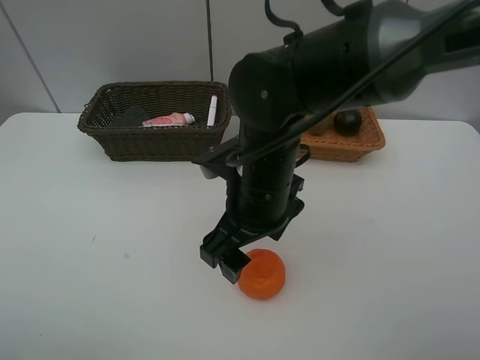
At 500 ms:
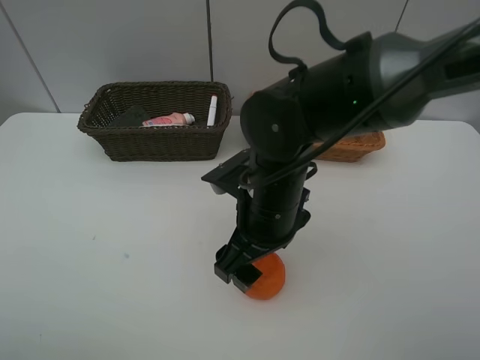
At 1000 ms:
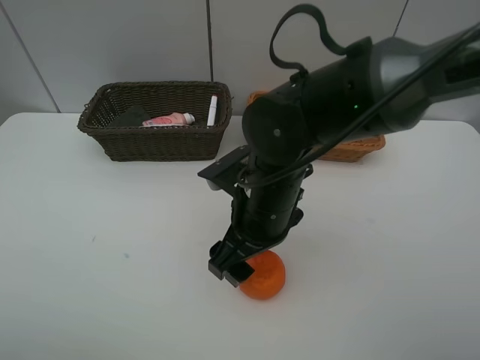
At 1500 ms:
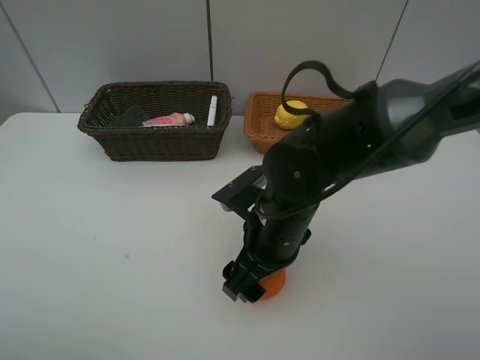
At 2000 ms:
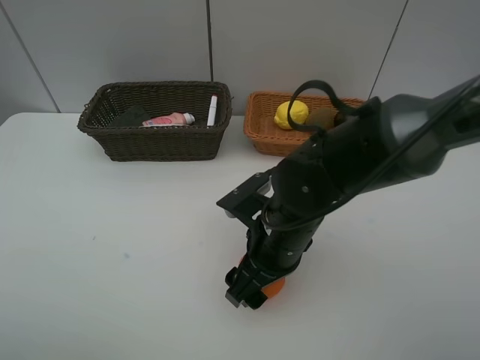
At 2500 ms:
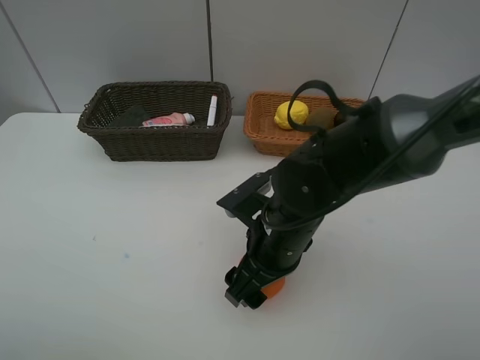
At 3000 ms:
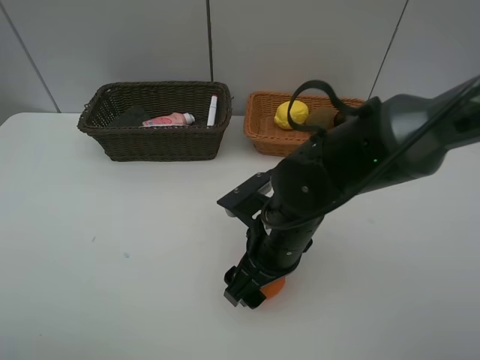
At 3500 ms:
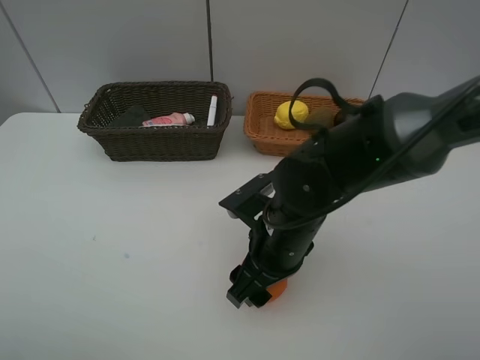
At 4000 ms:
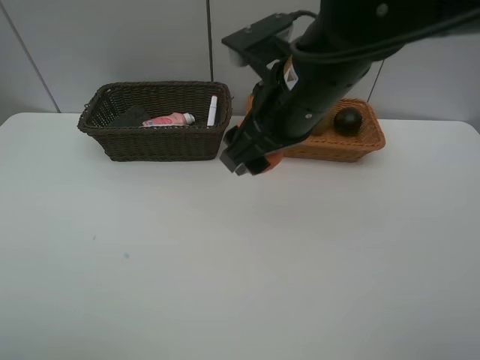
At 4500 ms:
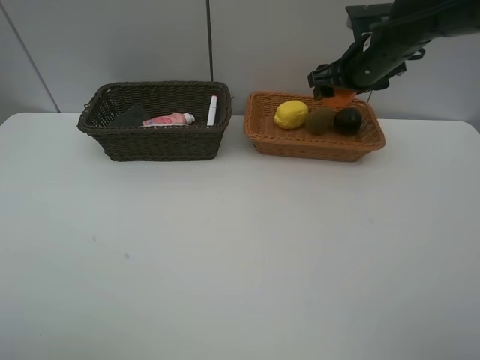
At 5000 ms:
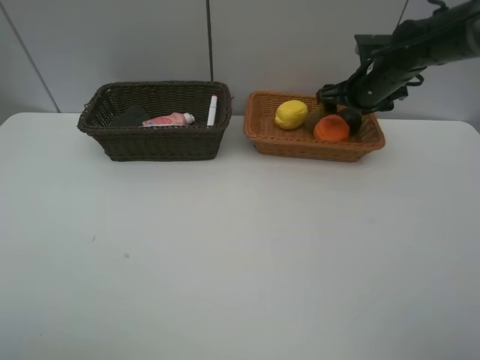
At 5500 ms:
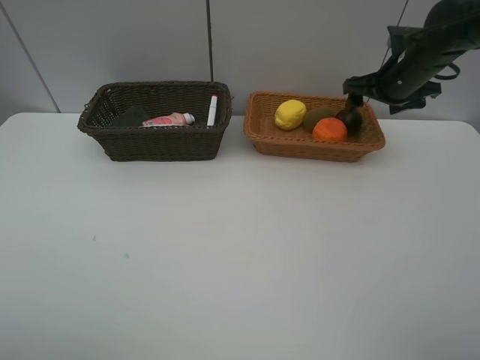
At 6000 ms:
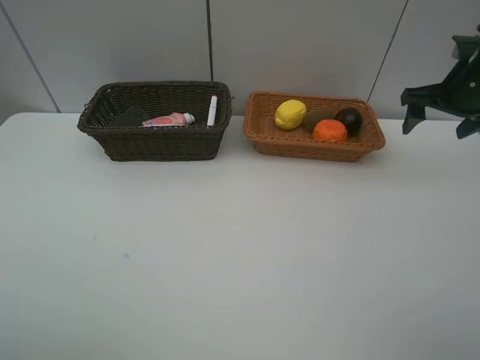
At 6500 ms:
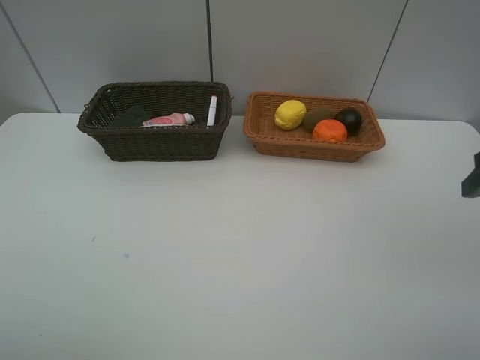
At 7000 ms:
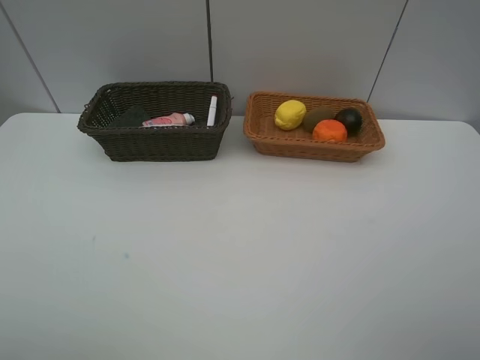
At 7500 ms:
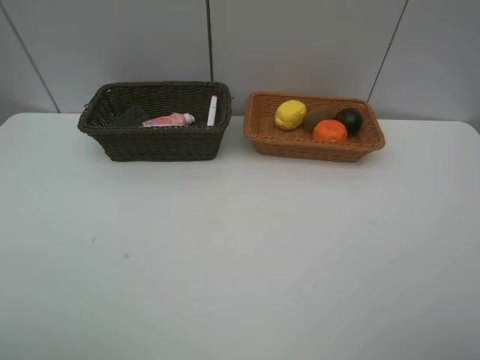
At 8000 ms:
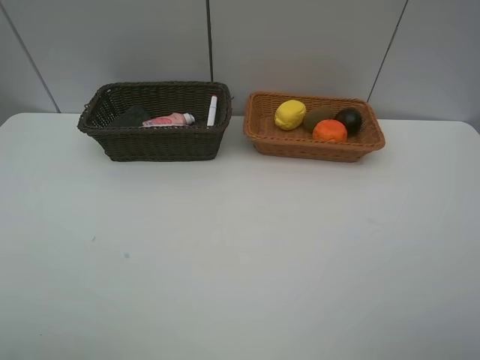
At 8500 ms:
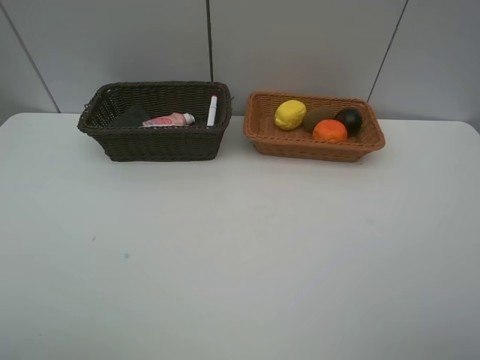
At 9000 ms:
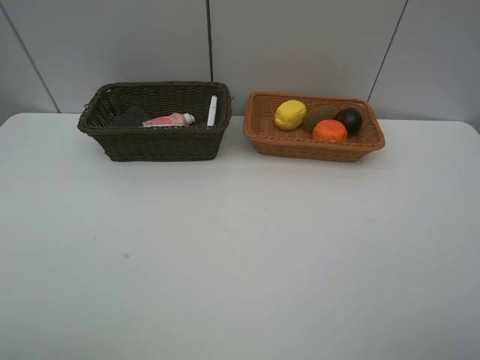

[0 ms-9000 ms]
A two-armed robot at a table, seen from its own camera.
Task of the whole recording: Place multiple objects separately in different baskets.
Step, 0 ms to 3500 ms: Pick up the orange with right gripper.
Step, 4000 ms to 5500 ms: Place the orange in the light basket with right gripper.
0 ms to 2000 ms: The right gripper is displaced downward by about 5 cm.
2000 ms to 4500 ms: The right gripper shifts approximately 30 cm forward, to the right and upward.
4500 ms to 7000 ms: The right gripper travels backward by roughly 40 cm, and opens up.

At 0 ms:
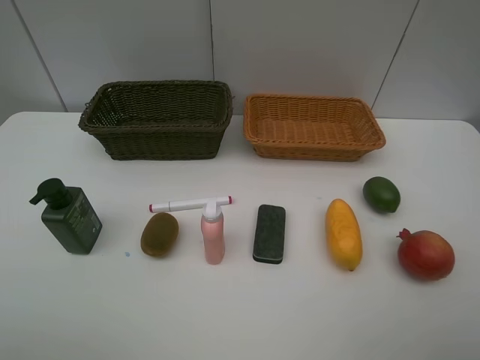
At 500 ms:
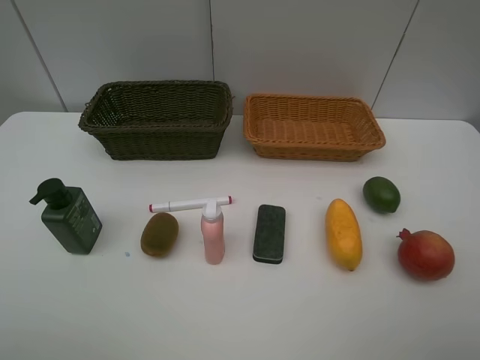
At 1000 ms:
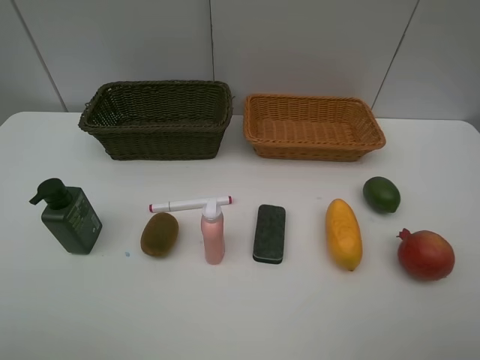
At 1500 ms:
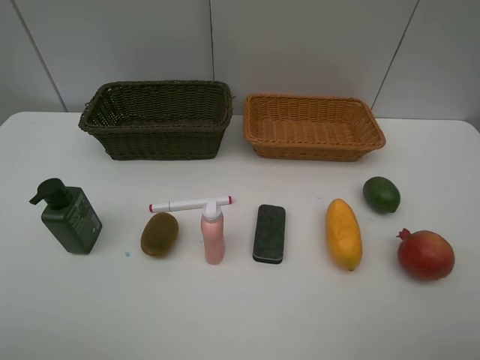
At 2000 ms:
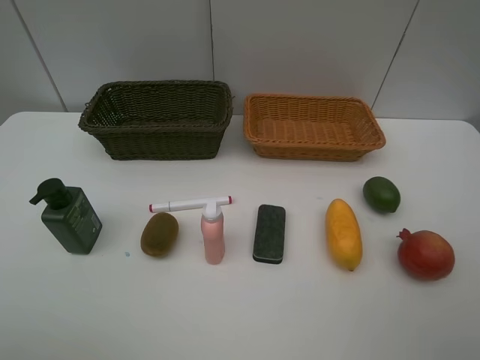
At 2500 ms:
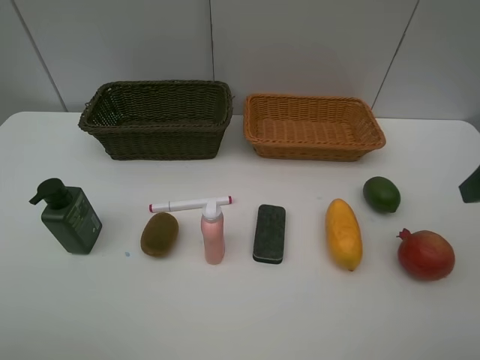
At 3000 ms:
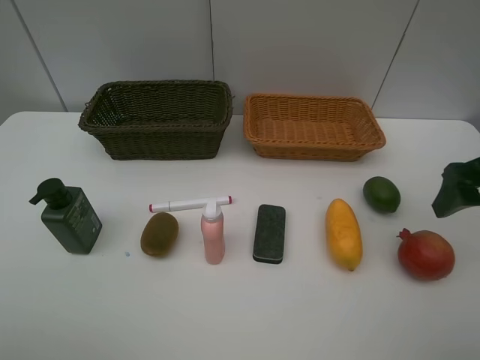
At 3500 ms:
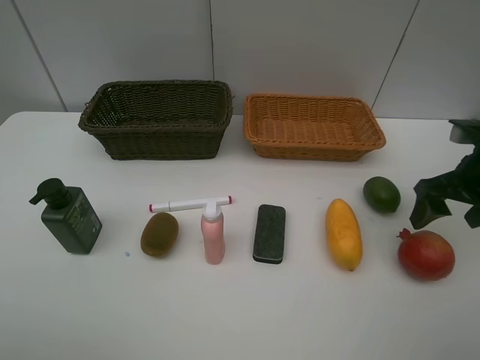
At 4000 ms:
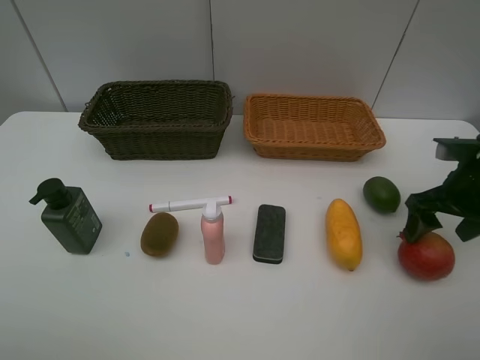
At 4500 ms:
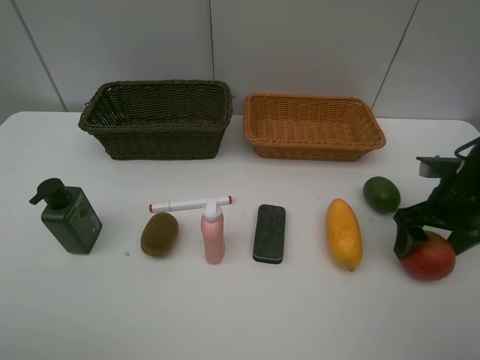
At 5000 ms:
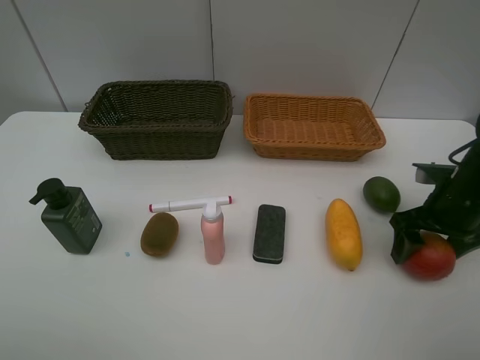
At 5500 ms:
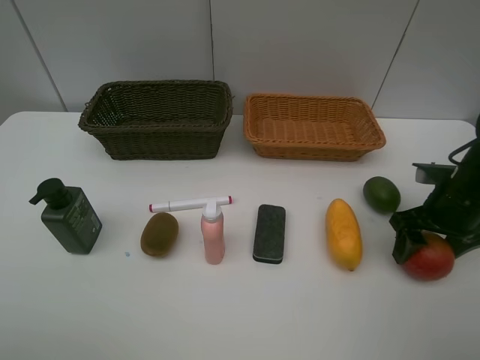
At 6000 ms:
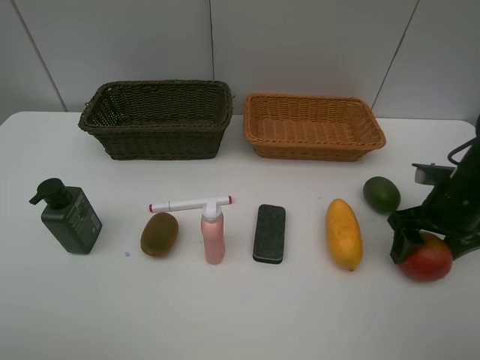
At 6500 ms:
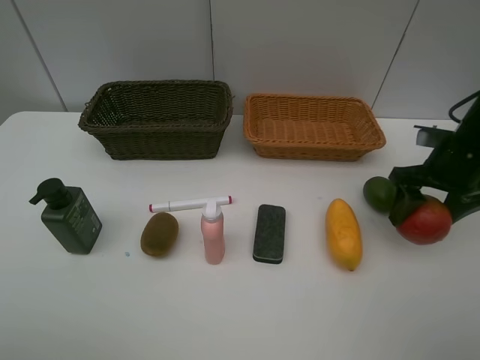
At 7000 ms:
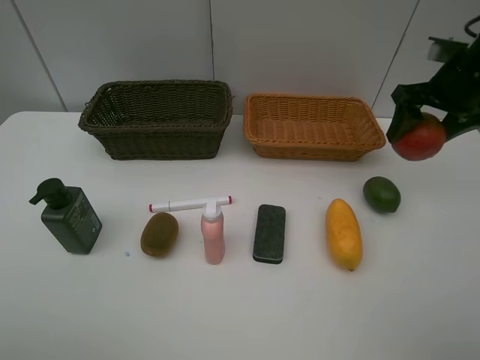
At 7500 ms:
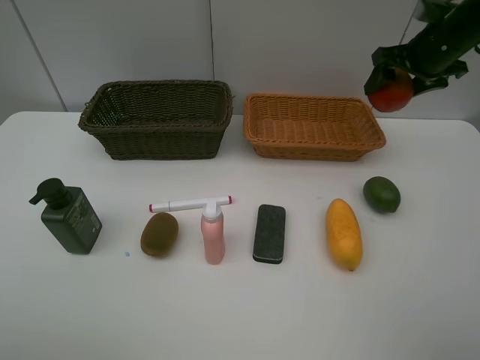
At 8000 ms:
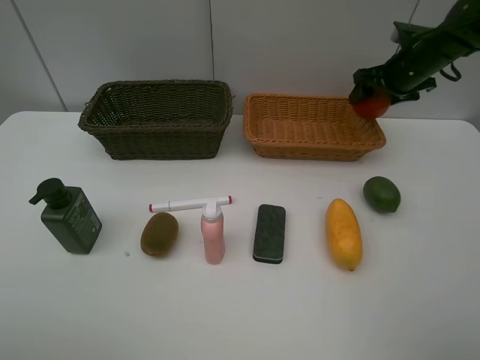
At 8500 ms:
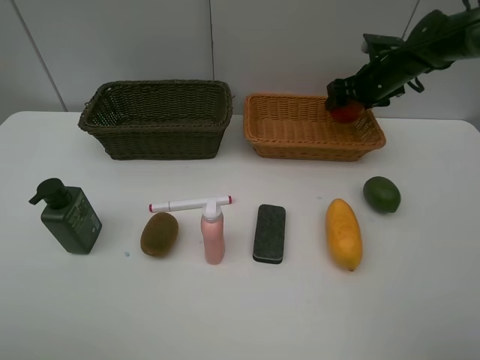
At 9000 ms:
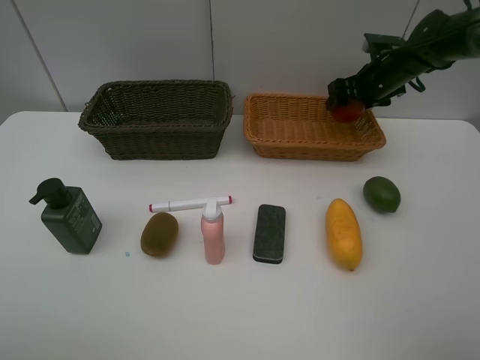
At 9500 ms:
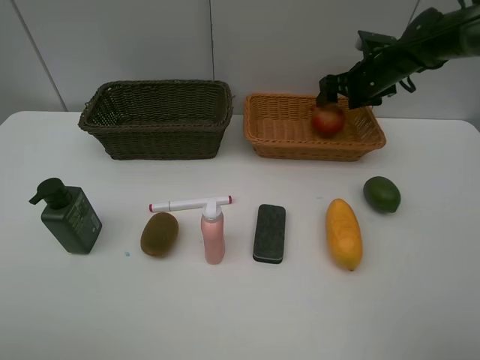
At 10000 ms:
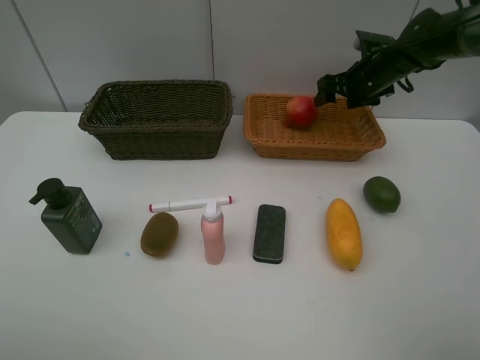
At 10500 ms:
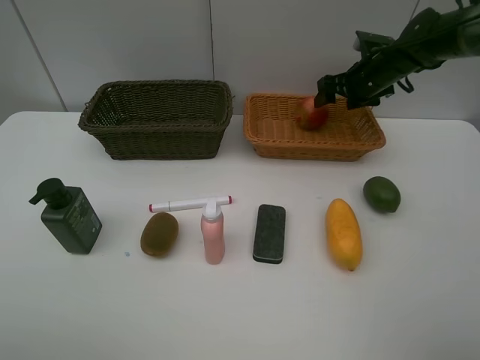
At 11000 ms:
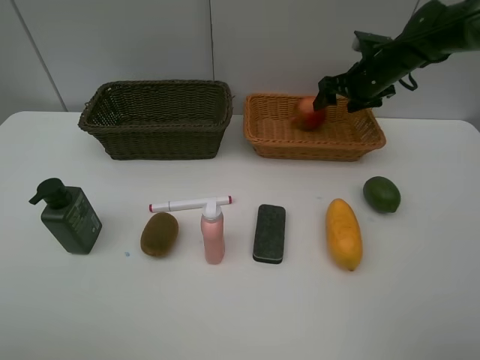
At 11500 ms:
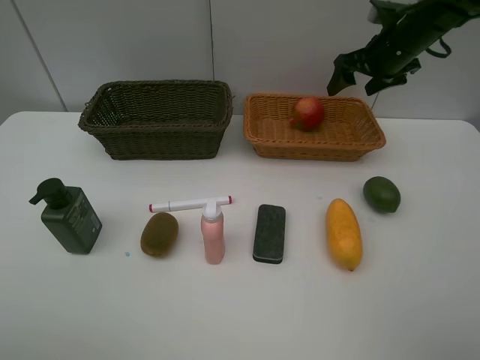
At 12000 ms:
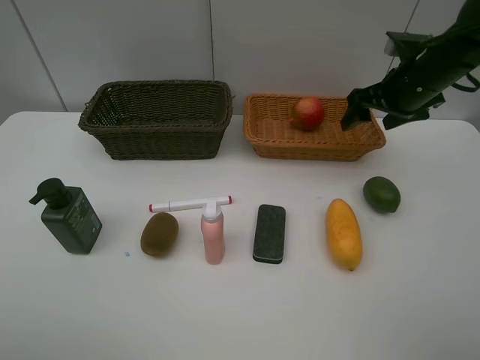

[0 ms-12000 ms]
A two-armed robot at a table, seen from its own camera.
Task of the whole recording: Place multiple objects separately in different baskets.
Step, 0 ms to 6500 ms: Pick up the pomegranate with right gripper.
Step, 7000 ms to 9500 ms: Place the pomegranate in the light basket with right gripper.
2000 ms to 4000 ms: The right gripper travels forward and downward by roughly 25 cm.
4000 ms to 6000 ms: The grippers make only small movements.
6000 ms to 8000 ms: The right gripper is displaced forward by approximately 20 cm.
8000 ms to 10000 ms: The right gripper goes some 5 cm to the left.
10000 ms to 12000 ms: The right gripper moves backward, approximately 10 cm.

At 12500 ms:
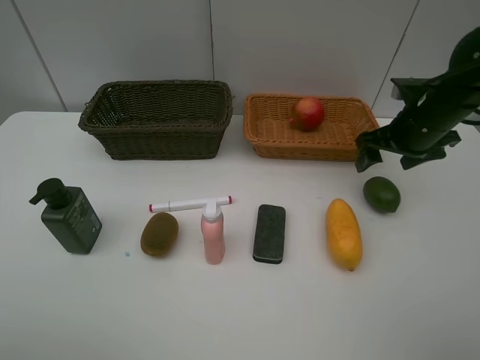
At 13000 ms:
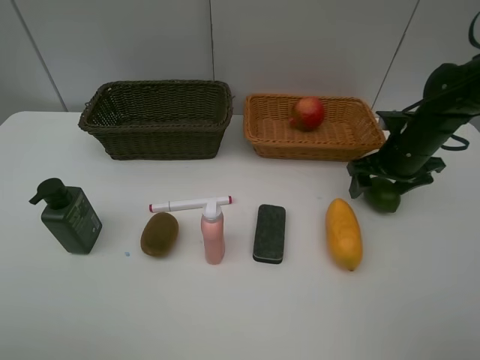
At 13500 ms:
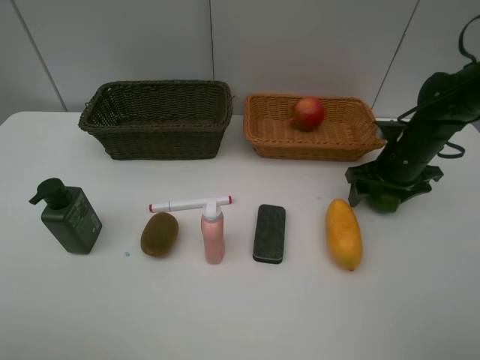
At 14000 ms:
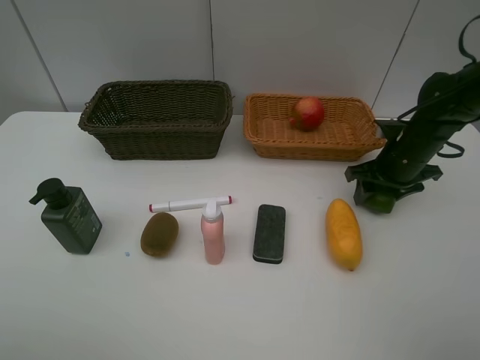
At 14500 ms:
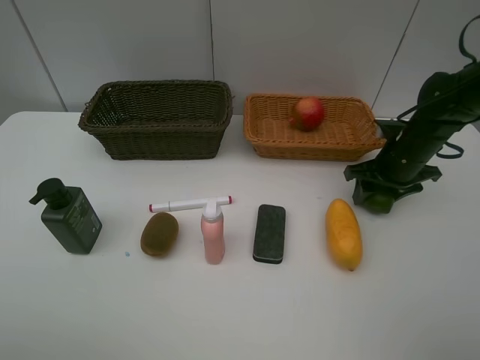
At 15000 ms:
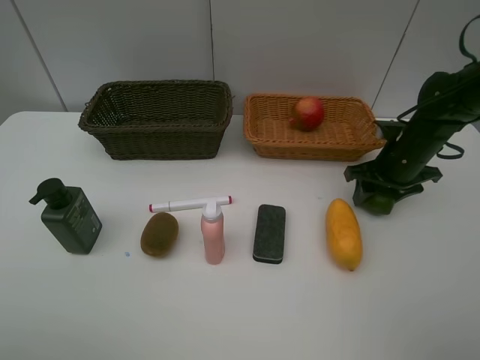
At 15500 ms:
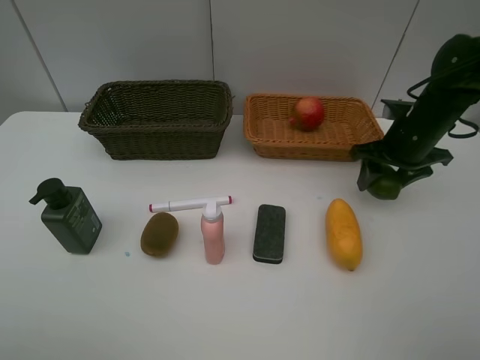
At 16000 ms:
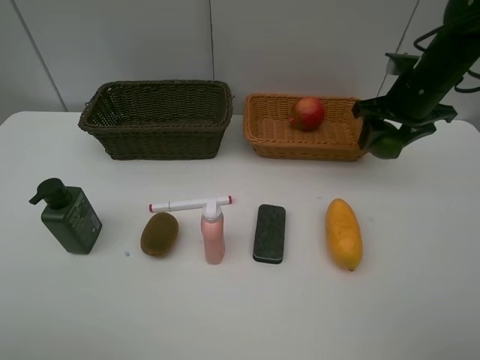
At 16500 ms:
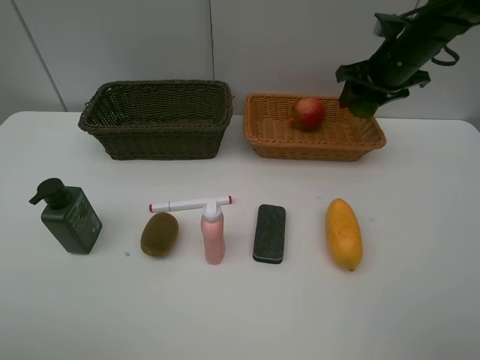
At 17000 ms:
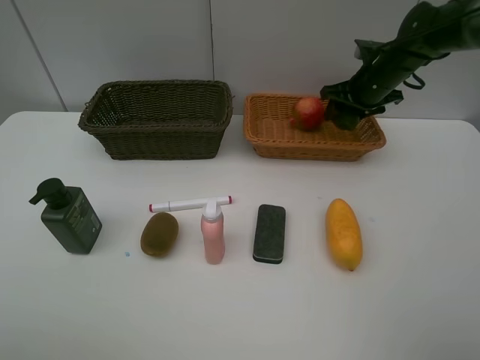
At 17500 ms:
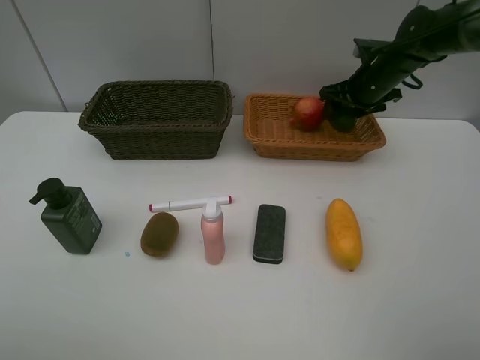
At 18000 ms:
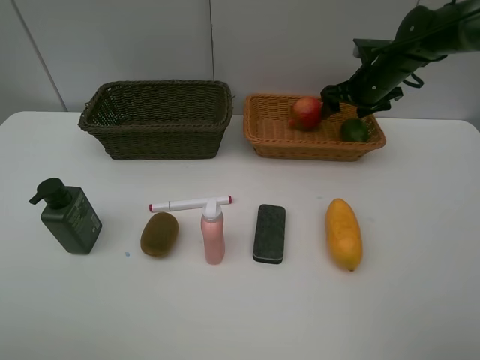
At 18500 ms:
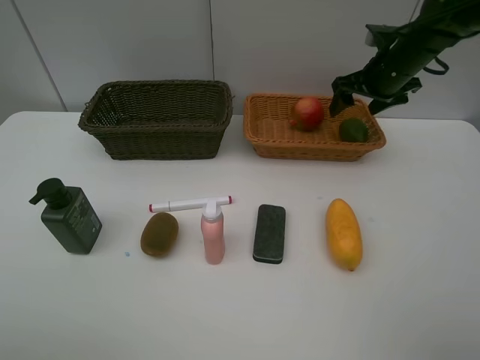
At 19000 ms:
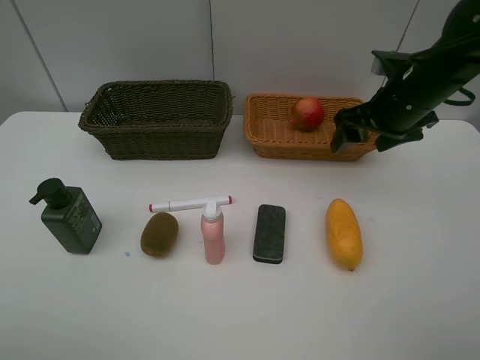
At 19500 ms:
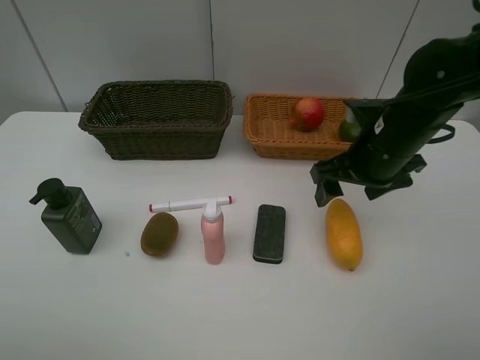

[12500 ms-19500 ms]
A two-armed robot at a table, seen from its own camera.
Task of the whole recording: Place multiple objects separately in different baskets.
Step, 12500 ms to 15000 ms: Pick up the lime with right gripper.
Step, 15500 ms to 18000 ms: Place the lime in the light basket with right gripper.
12500 ms to 14500 ms: The right gripper goes approximately 5 cm downward, and closes its fingers.
14500 ms to 16000 ms: The right gripper moves upward, approximately 10 cm.
16000 ms to 17500 ms: The right gripper shifts about 10 cm forward, and opens its fingers.
17500 ms to 19500 ms: The right gripper heads backward, covering some 20 cm.
